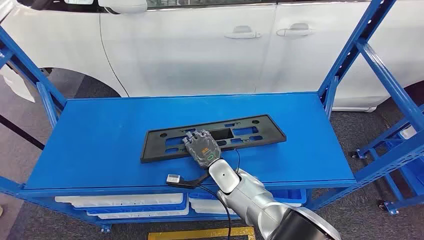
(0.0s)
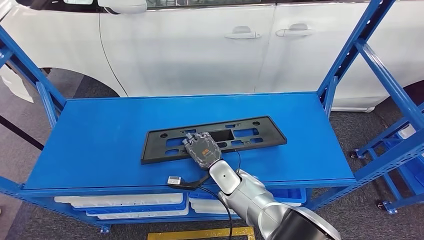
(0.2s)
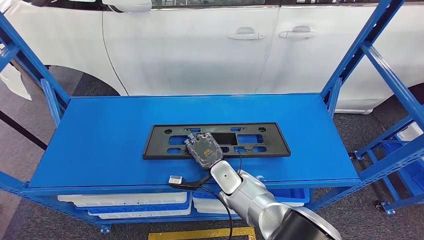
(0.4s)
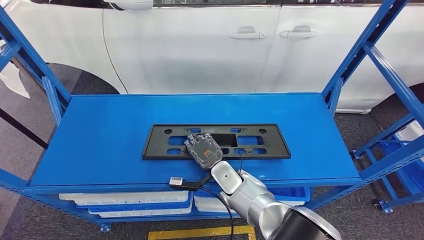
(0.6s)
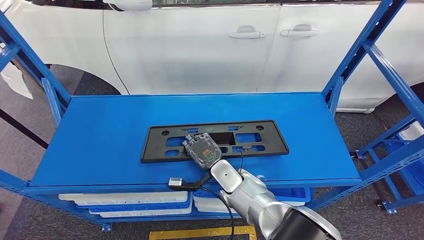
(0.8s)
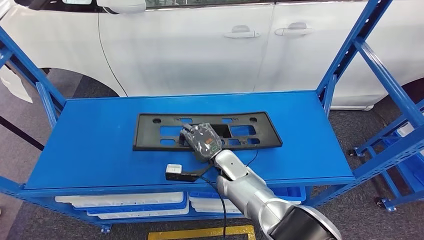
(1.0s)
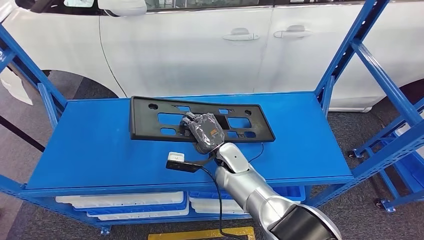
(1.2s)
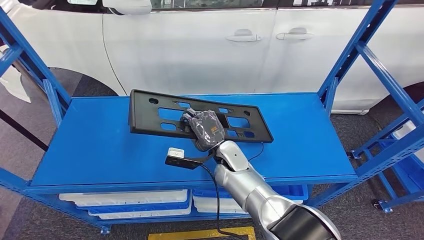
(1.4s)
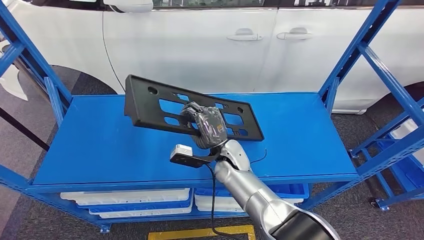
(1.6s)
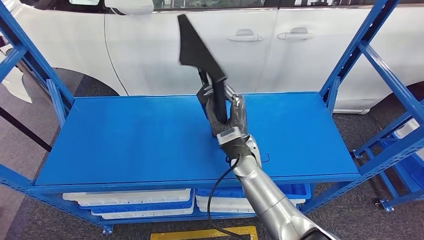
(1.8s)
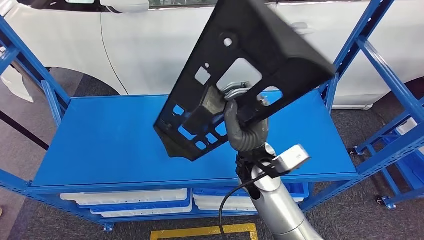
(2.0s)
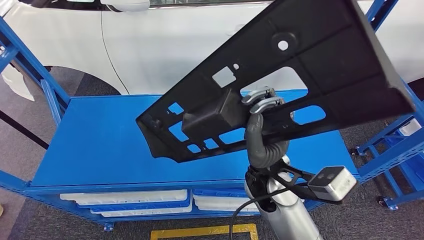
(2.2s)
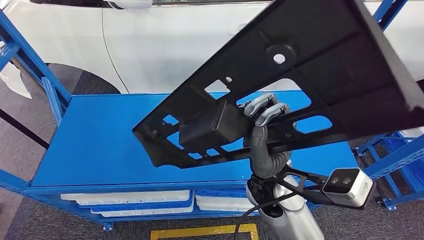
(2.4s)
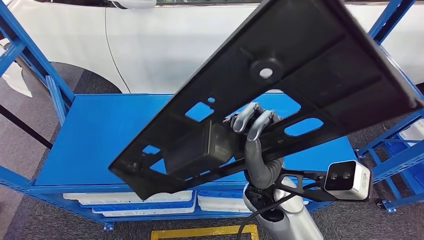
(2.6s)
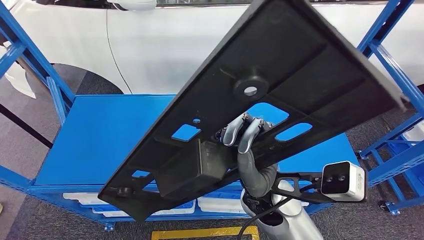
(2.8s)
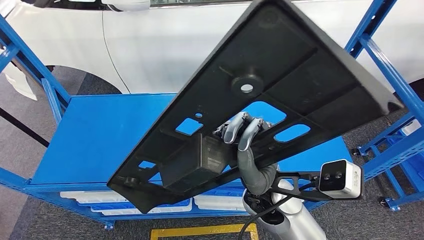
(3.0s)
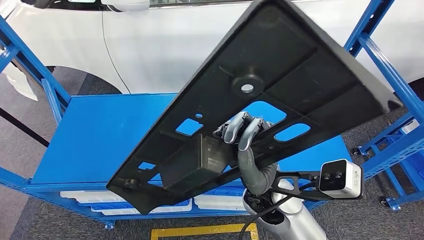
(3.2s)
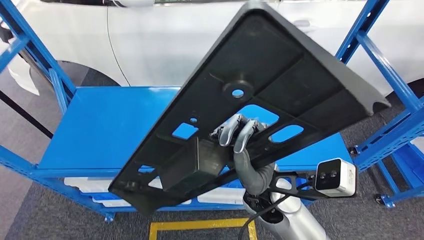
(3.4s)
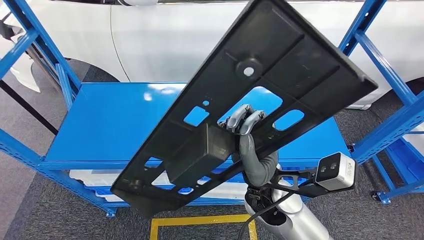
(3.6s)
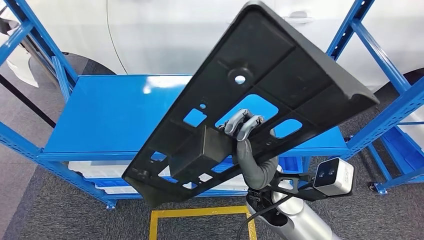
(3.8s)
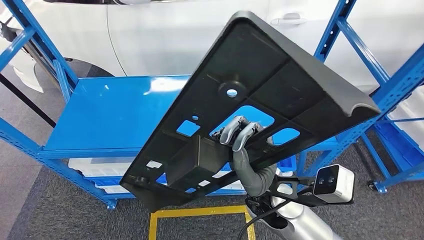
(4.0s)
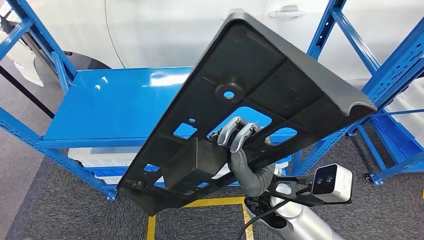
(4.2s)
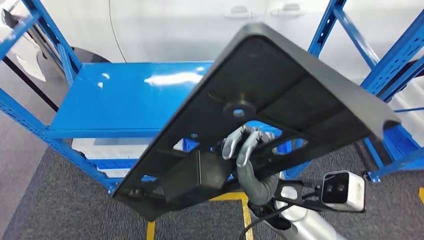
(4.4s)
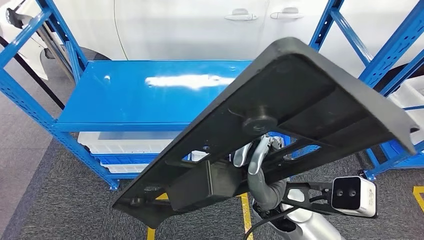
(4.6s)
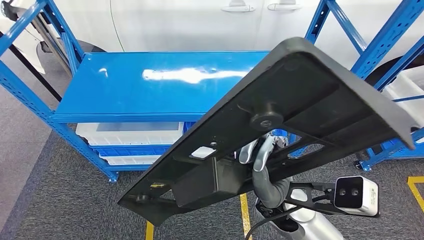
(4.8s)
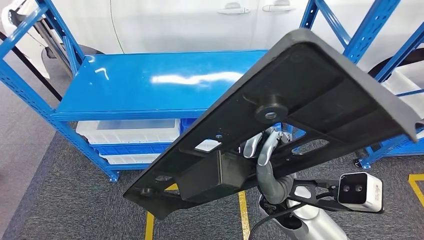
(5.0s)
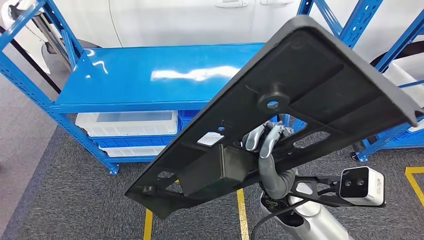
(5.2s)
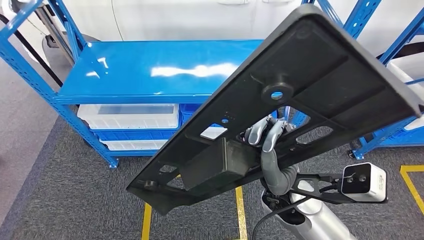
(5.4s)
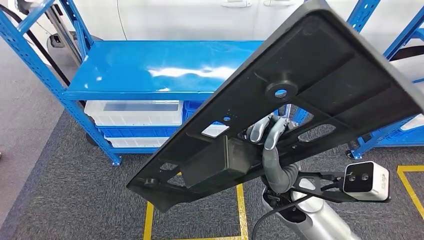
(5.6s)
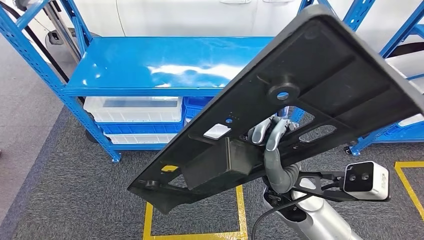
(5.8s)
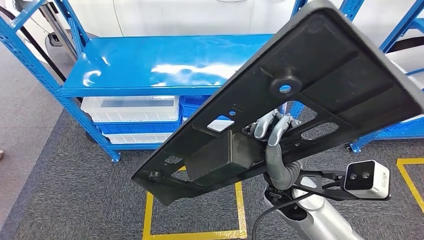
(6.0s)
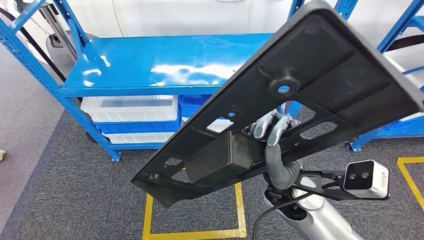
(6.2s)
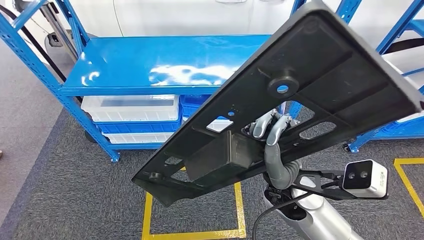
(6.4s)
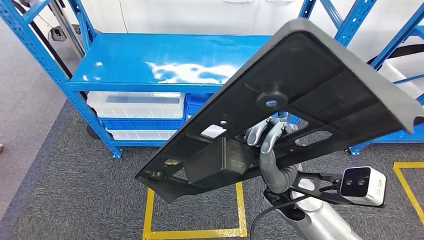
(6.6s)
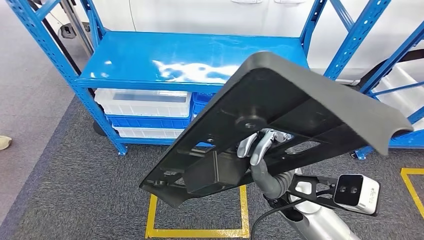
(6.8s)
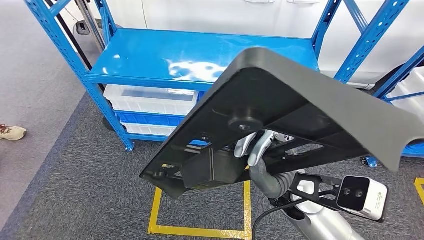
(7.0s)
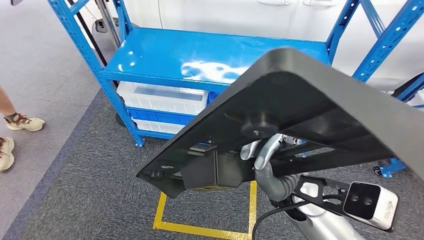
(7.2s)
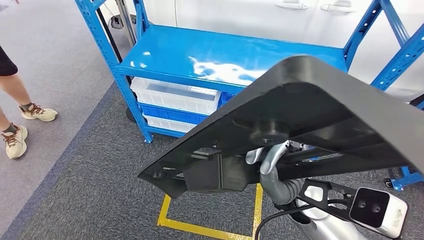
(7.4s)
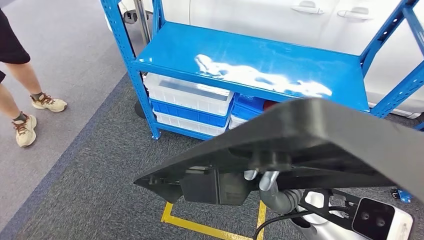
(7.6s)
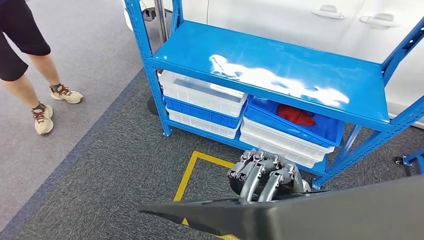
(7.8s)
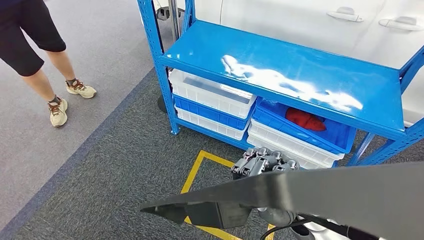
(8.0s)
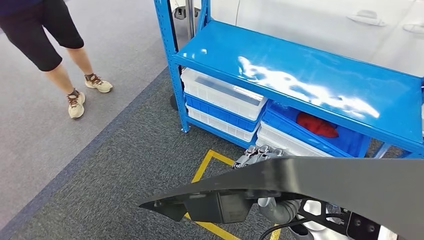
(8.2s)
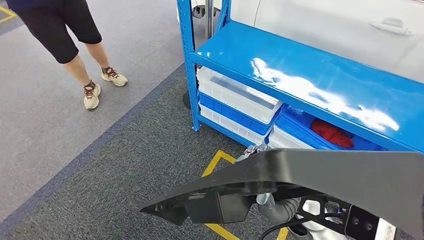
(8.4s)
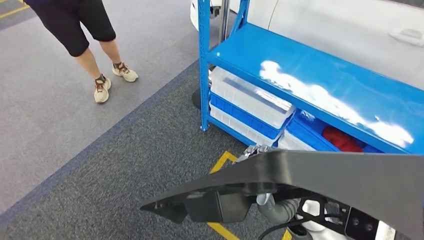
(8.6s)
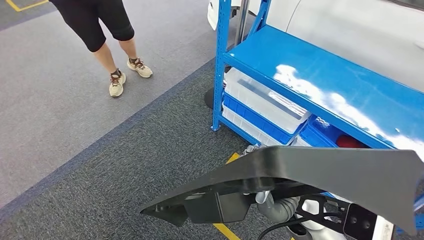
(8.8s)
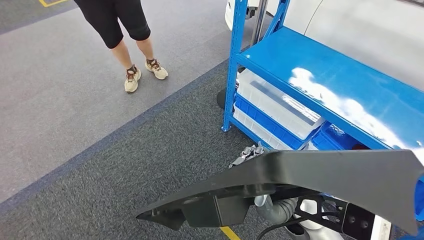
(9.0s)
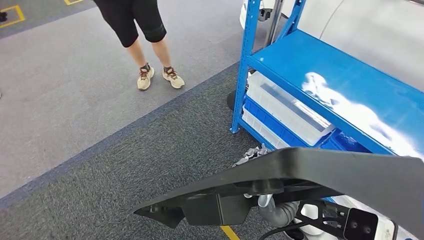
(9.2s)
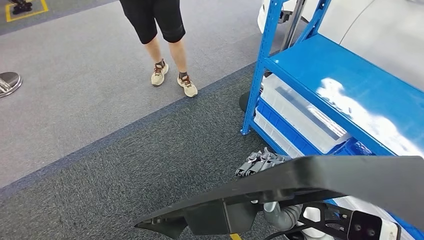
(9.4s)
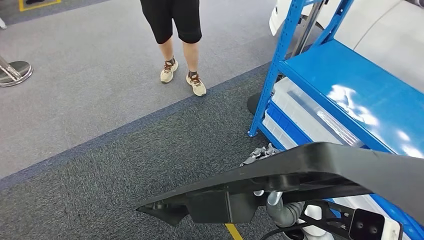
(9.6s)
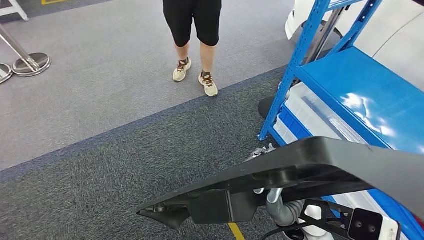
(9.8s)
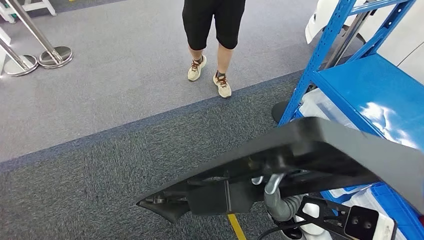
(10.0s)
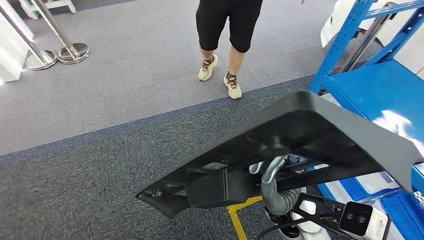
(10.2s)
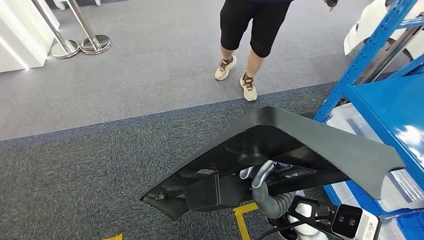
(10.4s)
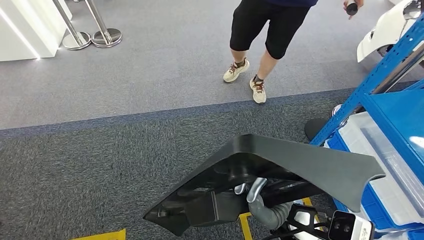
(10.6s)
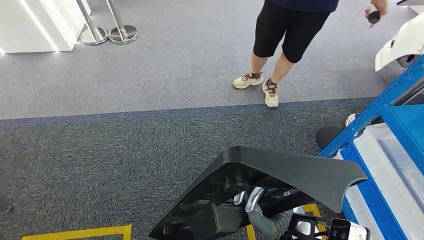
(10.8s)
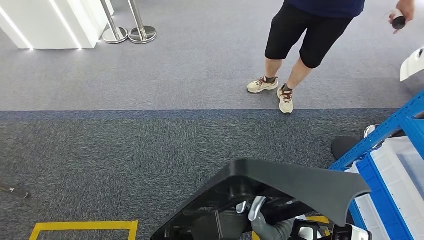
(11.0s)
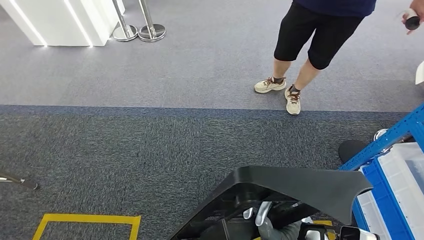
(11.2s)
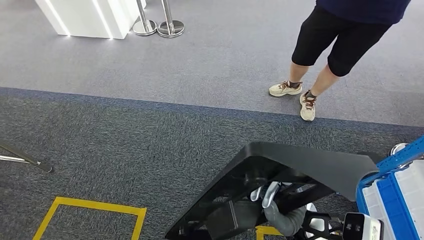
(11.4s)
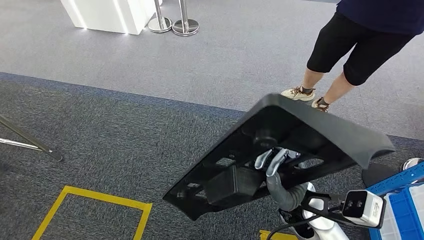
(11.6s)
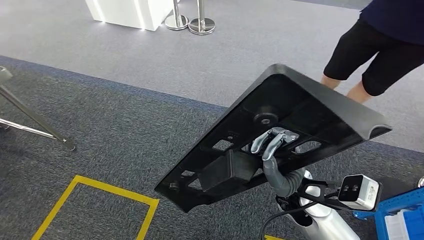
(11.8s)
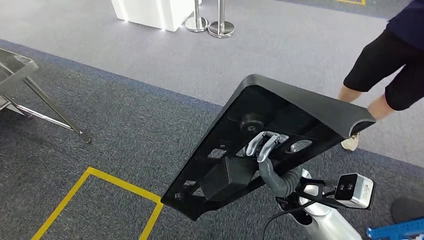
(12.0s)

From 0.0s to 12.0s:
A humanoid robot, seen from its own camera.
Step, from 0.0s to 2.0s: Pick up the large material from the shelf.

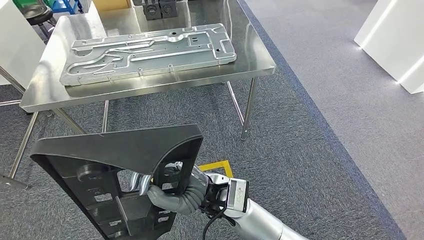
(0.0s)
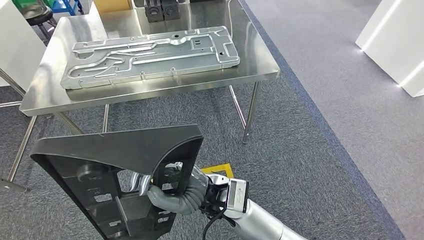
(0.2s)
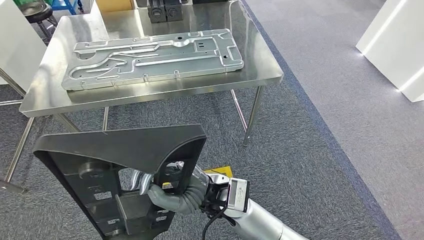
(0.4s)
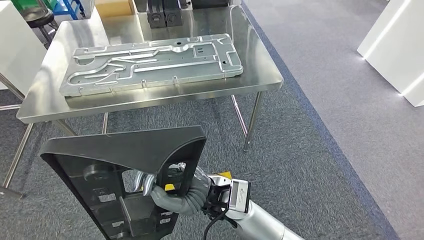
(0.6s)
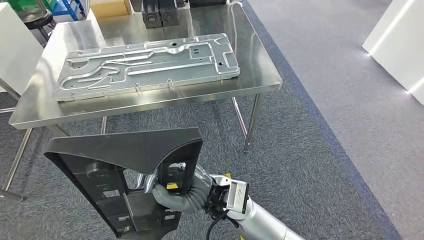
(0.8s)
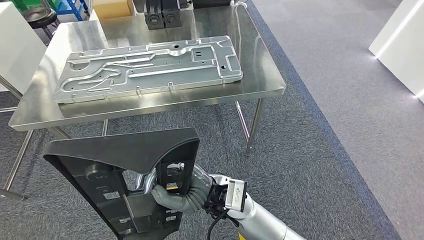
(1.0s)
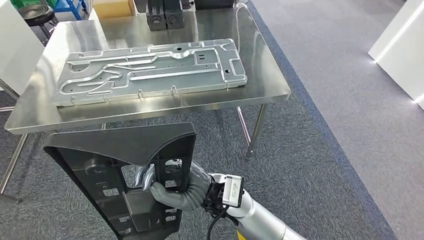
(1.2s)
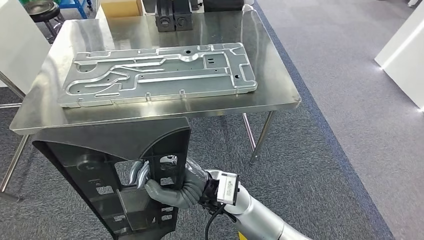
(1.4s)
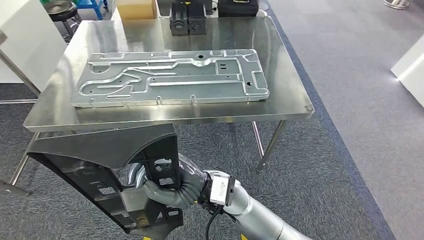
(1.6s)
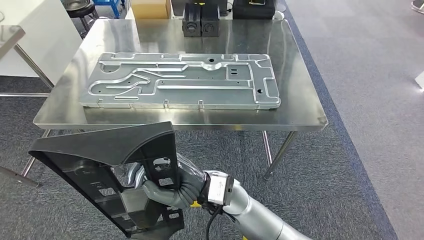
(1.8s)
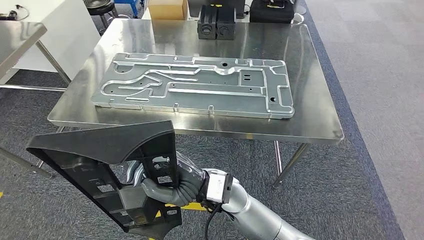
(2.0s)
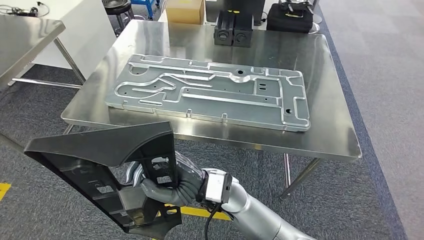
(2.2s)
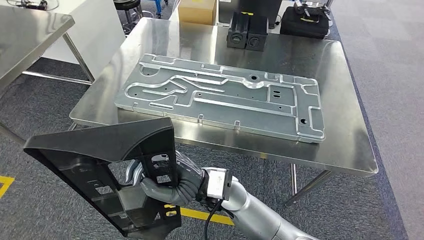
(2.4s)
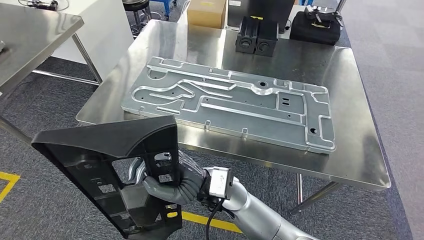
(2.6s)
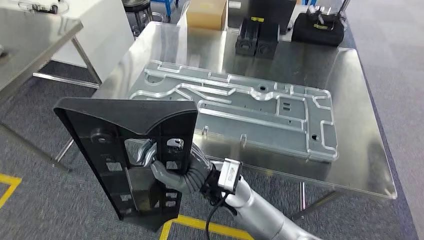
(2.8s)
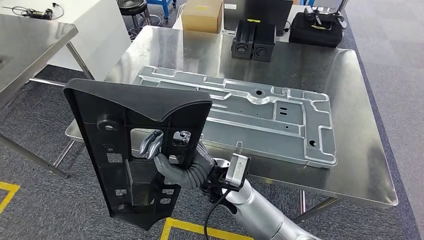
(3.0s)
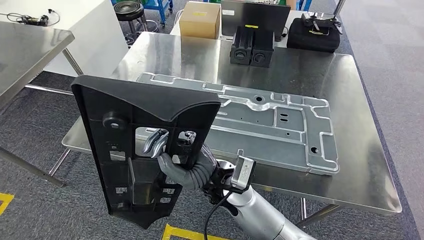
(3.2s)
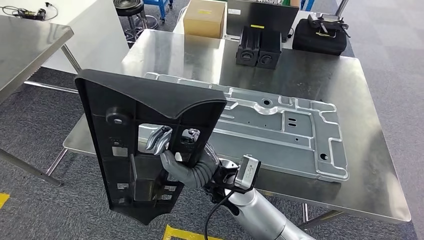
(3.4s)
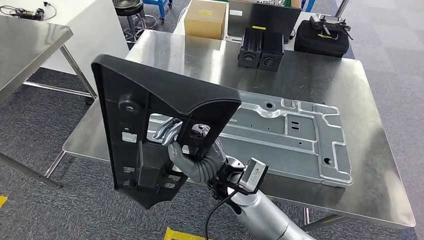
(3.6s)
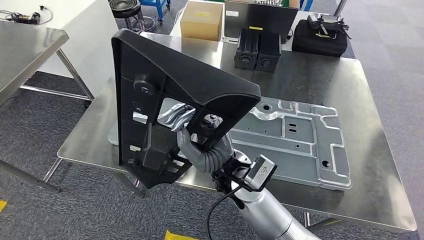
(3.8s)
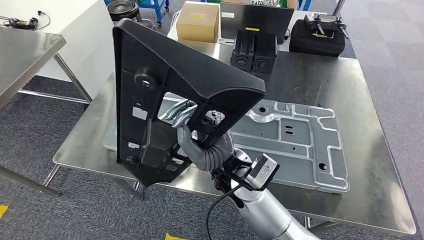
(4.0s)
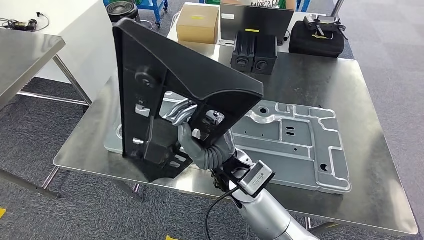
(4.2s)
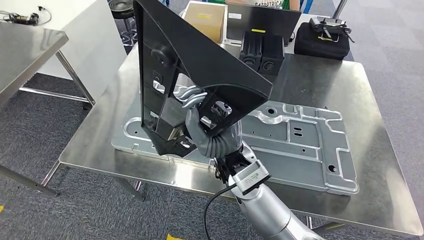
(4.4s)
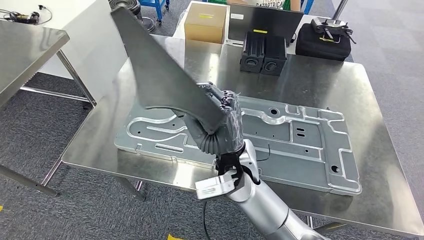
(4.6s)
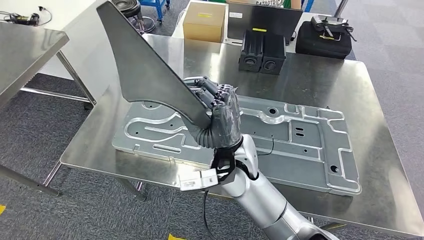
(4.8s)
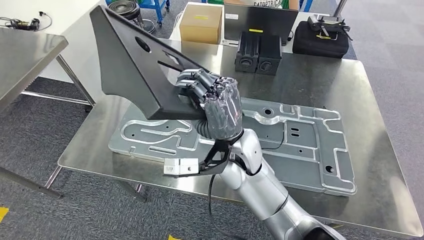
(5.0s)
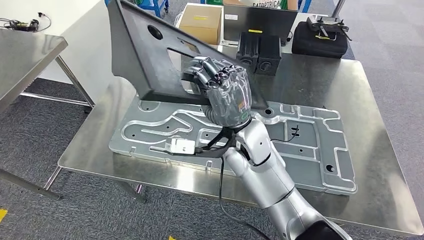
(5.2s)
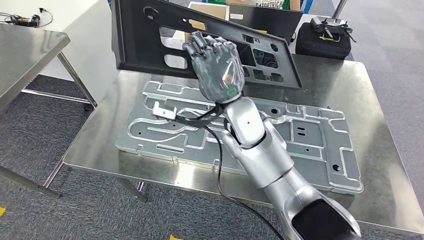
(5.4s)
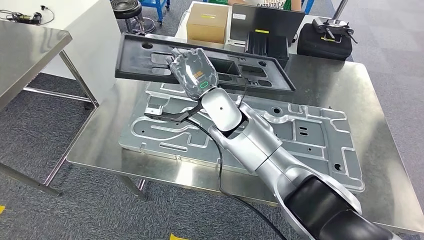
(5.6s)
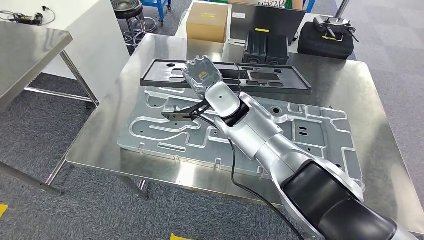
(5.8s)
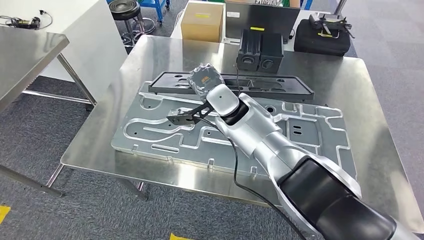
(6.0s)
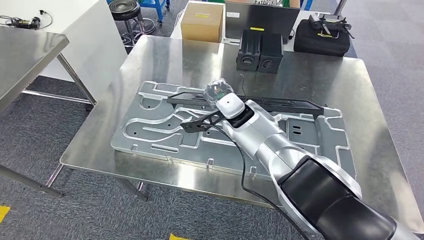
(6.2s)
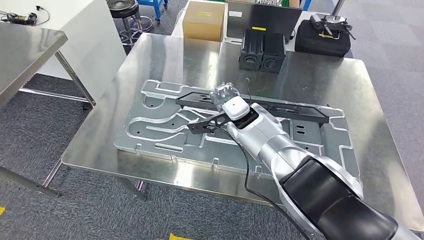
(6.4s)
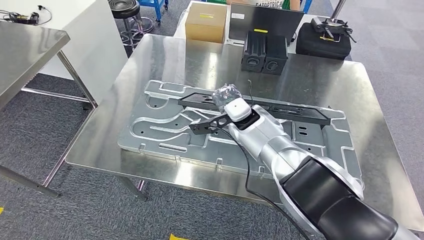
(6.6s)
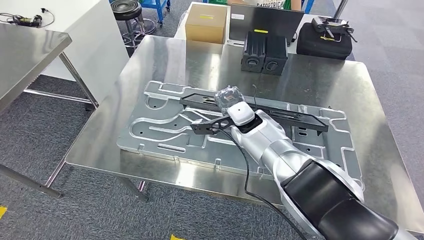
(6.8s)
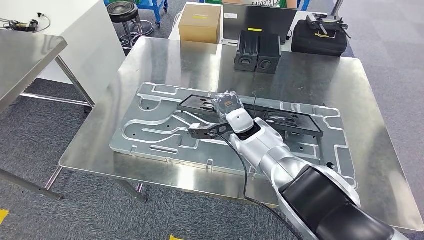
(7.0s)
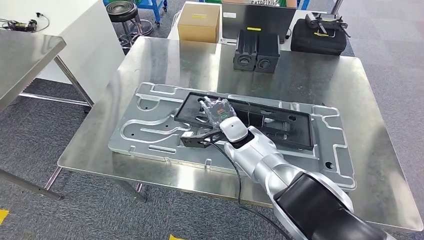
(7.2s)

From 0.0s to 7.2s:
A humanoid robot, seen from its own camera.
Step, from 0.0s to 4.4s: Move the large material to the workbench.
